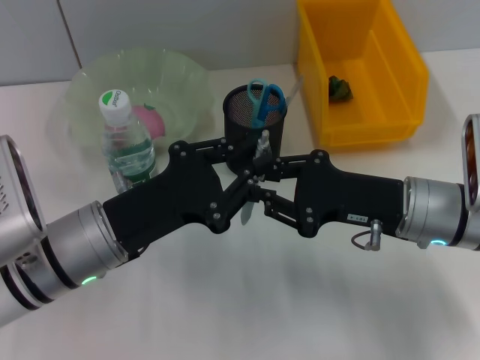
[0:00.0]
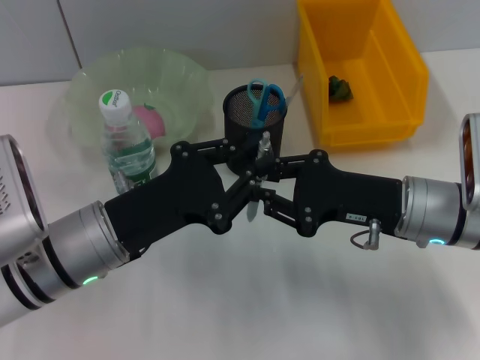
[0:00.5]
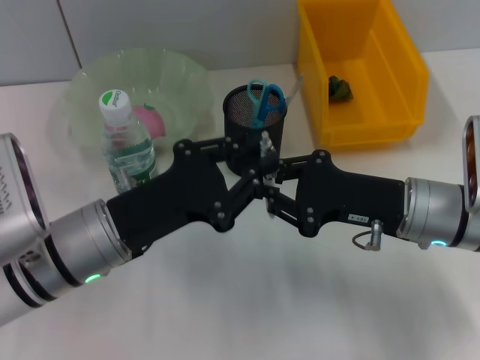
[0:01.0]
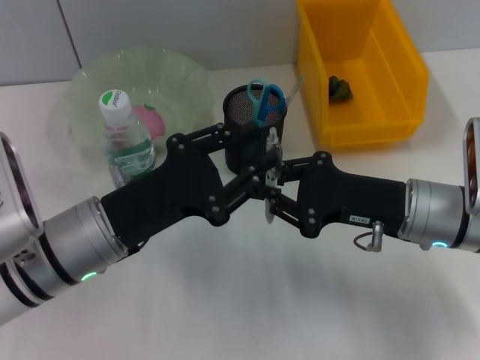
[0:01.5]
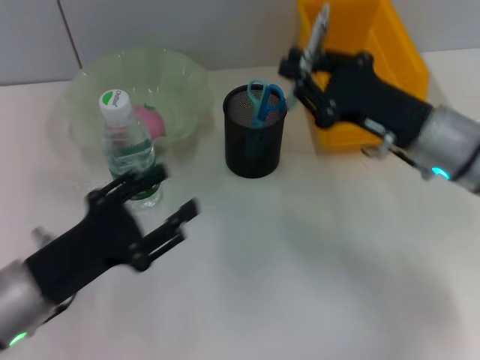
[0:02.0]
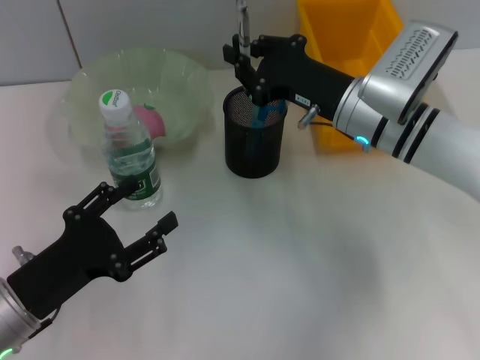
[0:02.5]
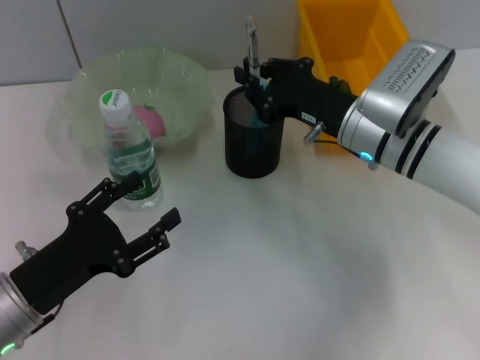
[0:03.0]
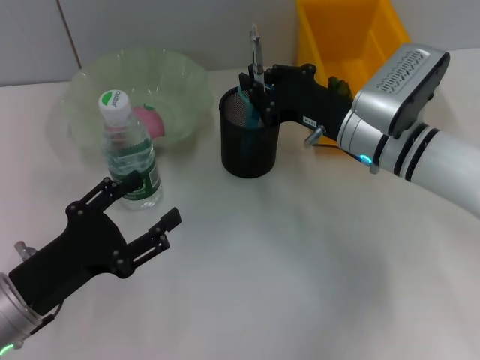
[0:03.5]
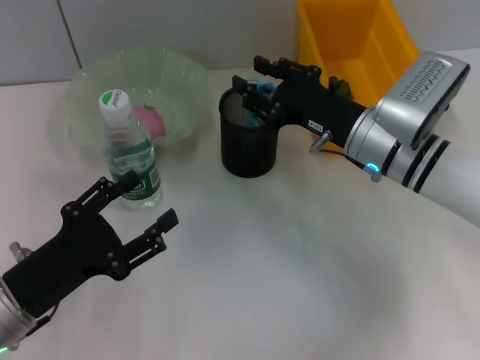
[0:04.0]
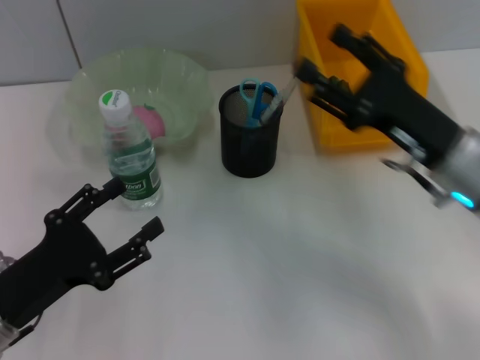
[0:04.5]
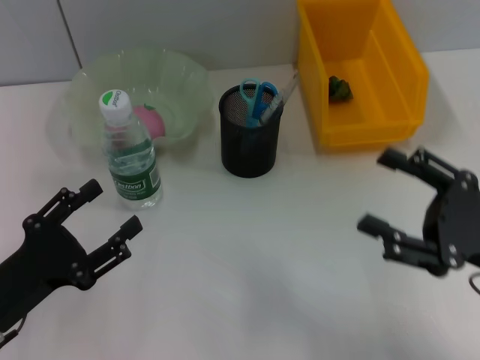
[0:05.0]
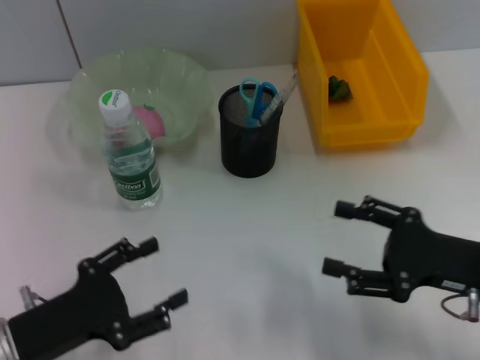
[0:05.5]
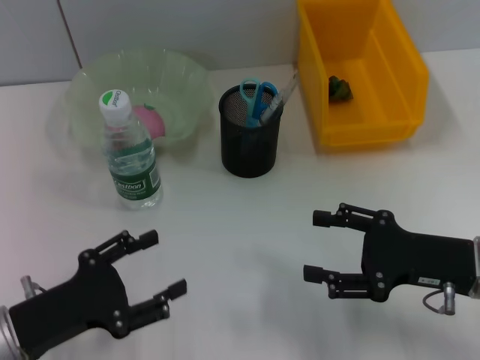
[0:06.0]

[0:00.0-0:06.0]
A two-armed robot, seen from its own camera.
Step, 0:02.0 to 0:04.0: Place the gray spring-action pen into the pen holder with the right hand.
0:00.0 to 0:02.0: The left gripper shifts some 5 cm to the left, and opens its fingers. The right gripper moves about 5 cm.
0:02.0 to 0:04.0: The left gripper opens up. The right gripper shifts by some 5 cm.
0:04.0 to 0:06.0: The right gripper is displaced backward and to the right by about 15 cm, and opens its fingers.

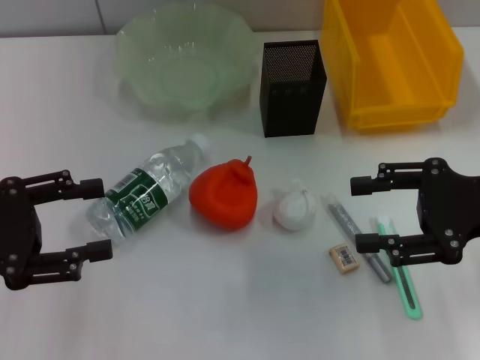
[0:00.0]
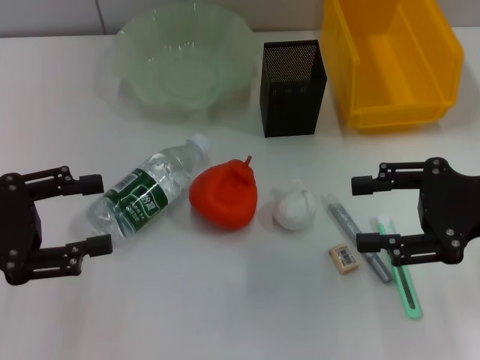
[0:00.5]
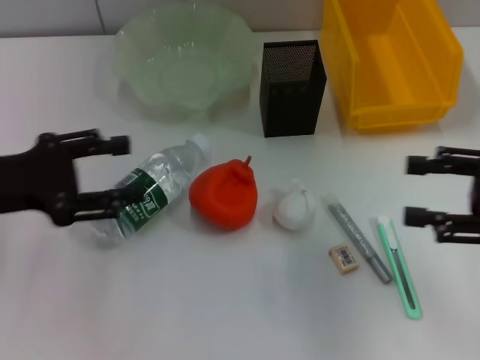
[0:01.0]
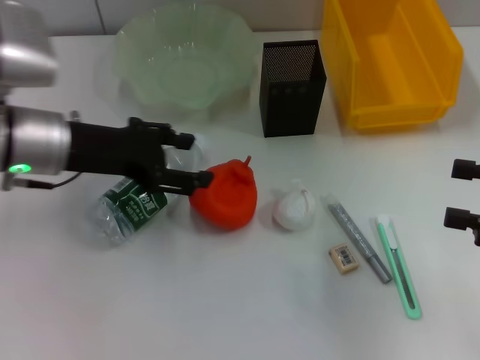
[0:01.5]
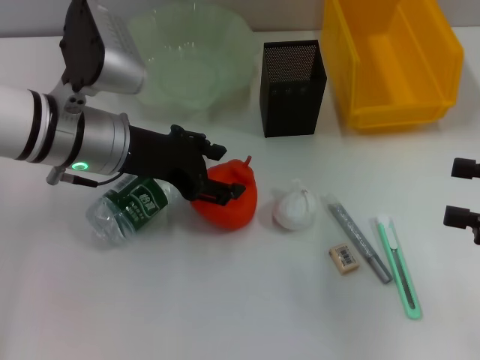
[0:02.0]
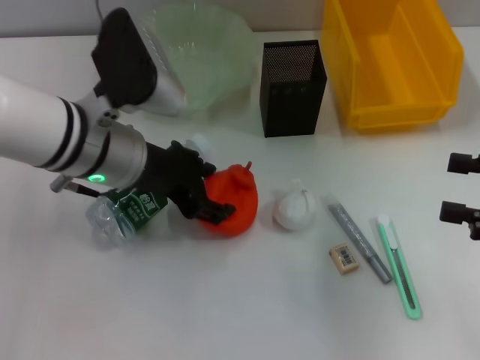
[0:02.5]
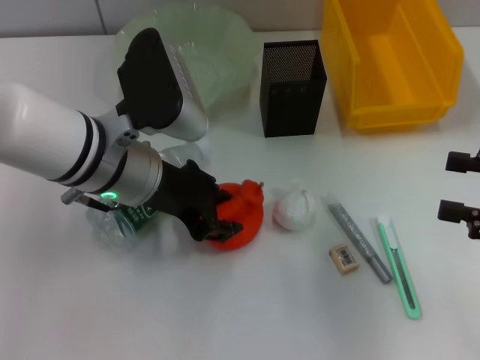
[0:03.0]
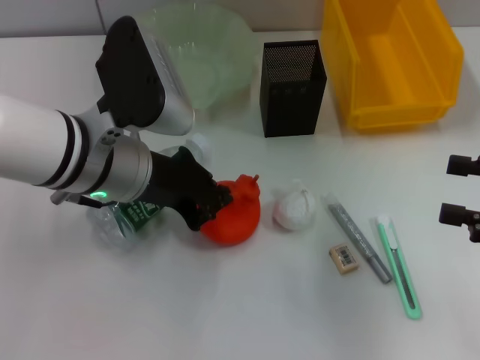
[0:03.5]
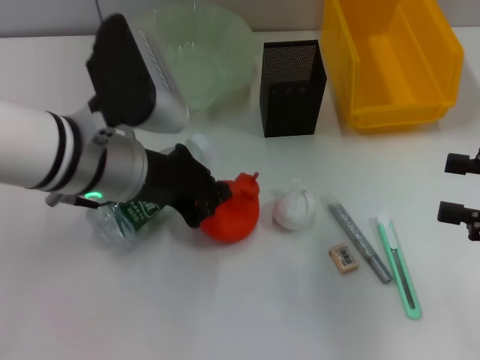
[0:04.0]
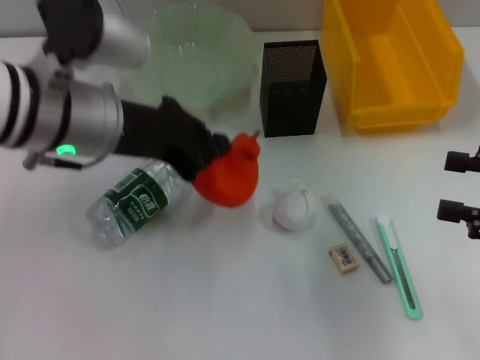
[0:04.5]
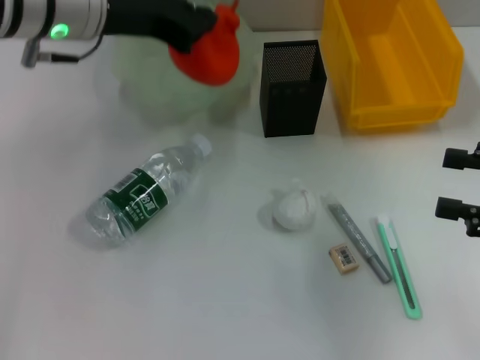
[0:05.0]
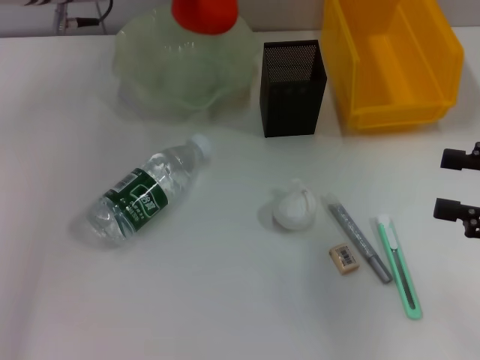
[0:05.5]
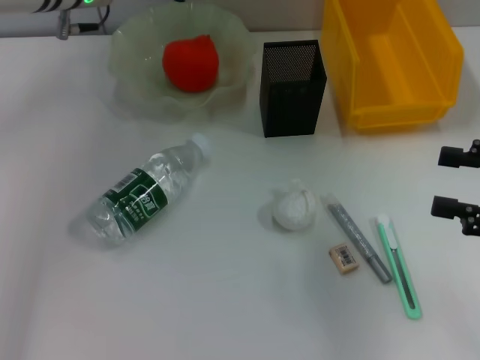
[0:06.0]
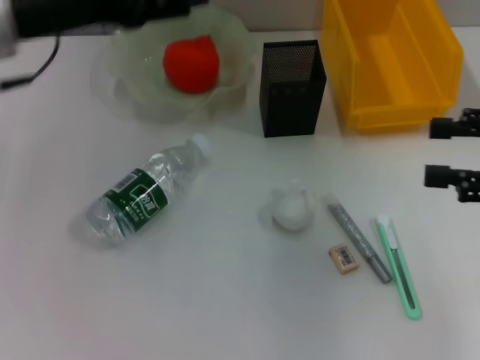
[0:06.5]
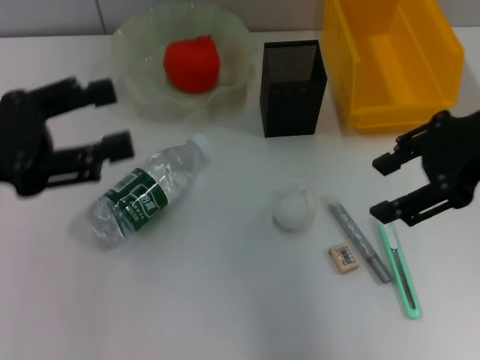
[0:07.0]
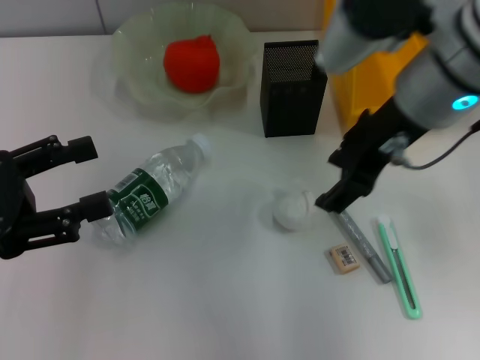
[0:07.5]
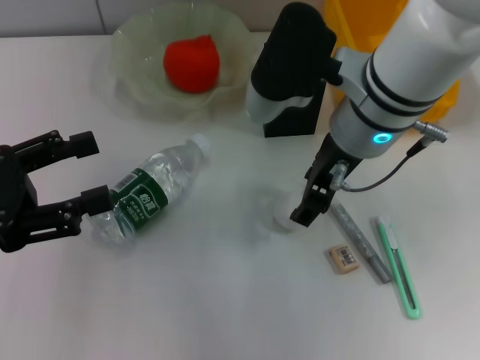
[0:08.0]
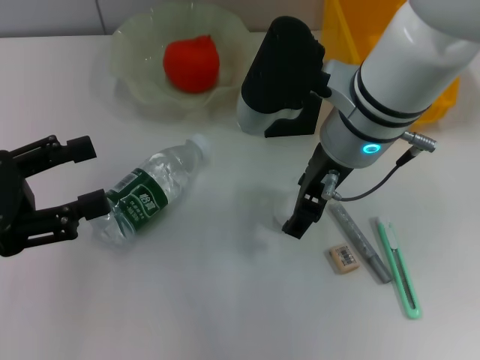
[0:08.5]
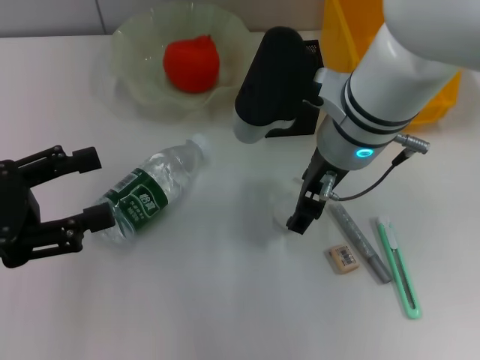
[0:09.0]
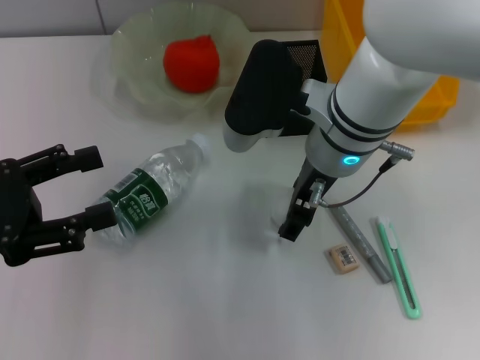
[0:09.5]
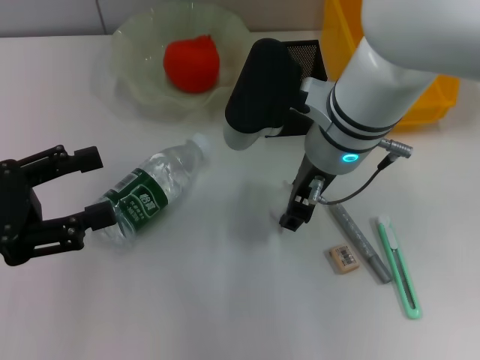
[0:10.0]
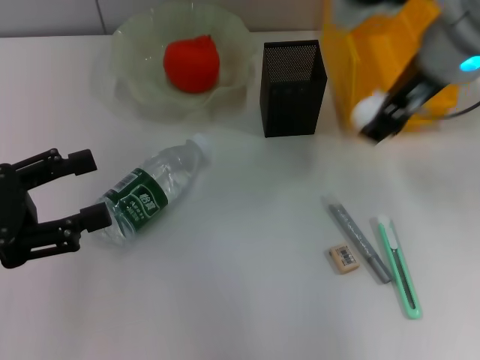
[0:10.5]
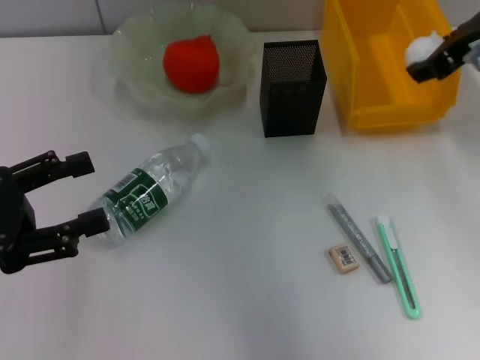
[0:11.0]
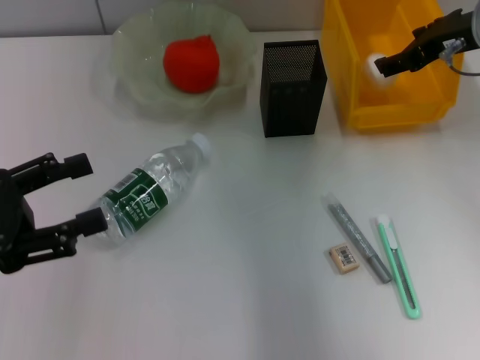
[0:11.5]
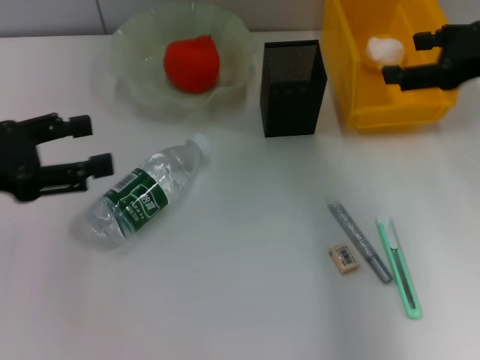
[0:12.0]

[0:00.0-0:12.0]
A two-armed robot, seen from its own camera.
Step, 0:00.0 to 0:03.5: Grab the orange with the left hand.
Step, 0:04.0 to 0:05.5: Place the orange into the fruit bowl with the left hand.
Step, 0:06.0 to 0:09.5: Grab the paper ball with the right hand.
Step, 0:10.0 to 0:11.0: Place the paper ball into the trash can with the right hand.
0:00.0 to 0:02.0: The left gripper shifts approximately 20 cm to the right and forward; the right gripper is displaced to the right by approximately 5 cm.
0:02.0 to 0:04.0: The left gripper moves roughly 5 cm, and closes up.
0:04.0 to 0:06.0: The left gripper heads forward, covering roughly 15 cm.
0:06.0 to 0:08.0: The left gripper shifts roughly 25 cm backward and to the left, and opens. Meanwhile the right gripper goes roughly 30 cm to the left and forward.
0:08.0 to 0:10.0: The grippers move only a little.
0:10.0 to 0:12.0: The left gripper moves about 5 cm; the right gripper shifts some 20 cm to the right.

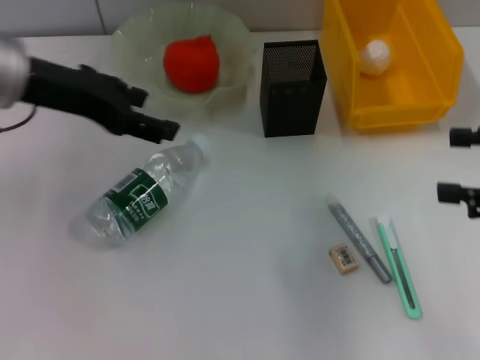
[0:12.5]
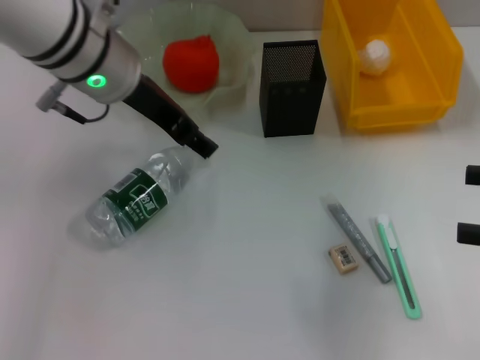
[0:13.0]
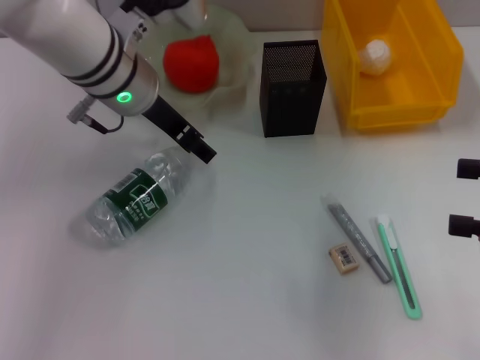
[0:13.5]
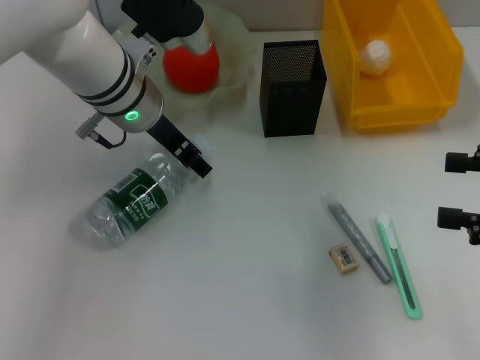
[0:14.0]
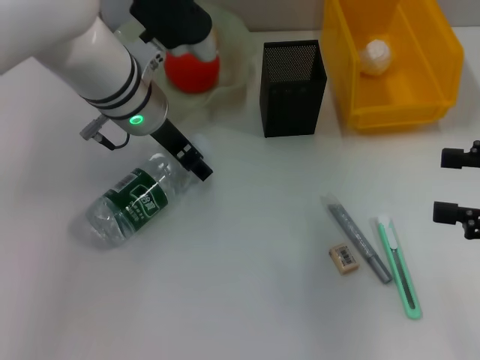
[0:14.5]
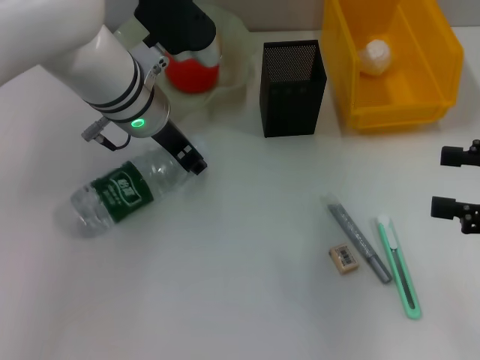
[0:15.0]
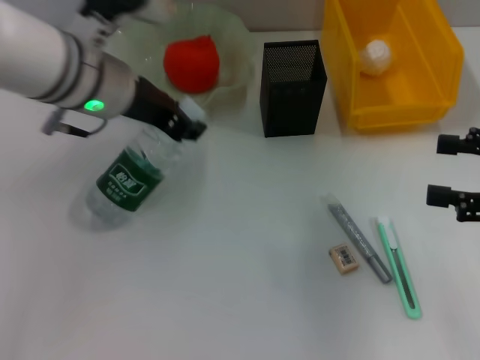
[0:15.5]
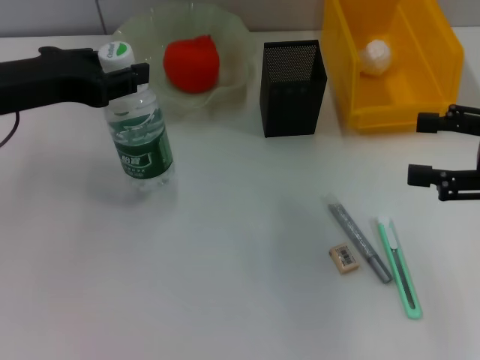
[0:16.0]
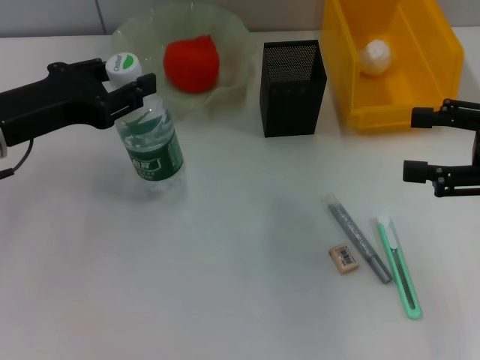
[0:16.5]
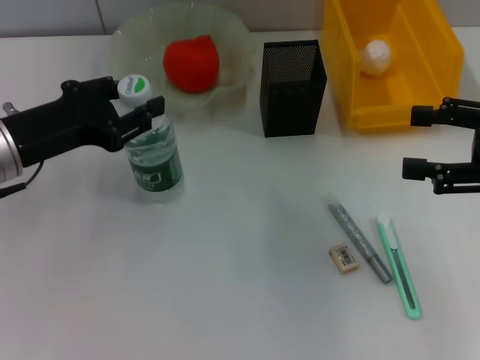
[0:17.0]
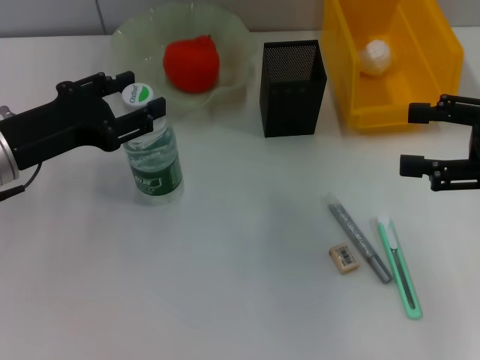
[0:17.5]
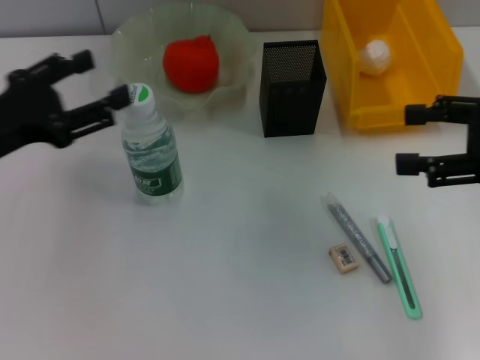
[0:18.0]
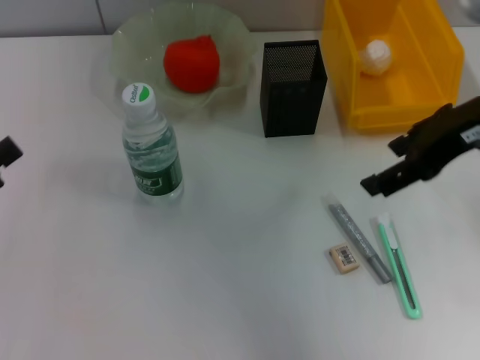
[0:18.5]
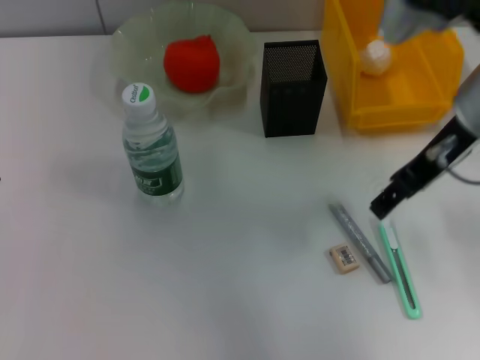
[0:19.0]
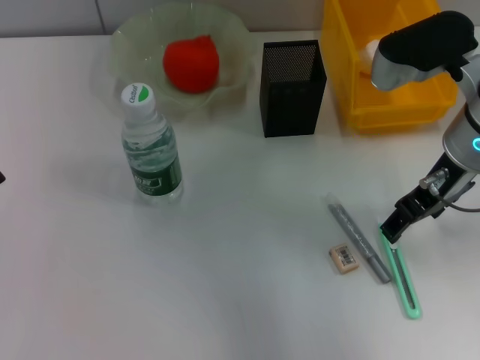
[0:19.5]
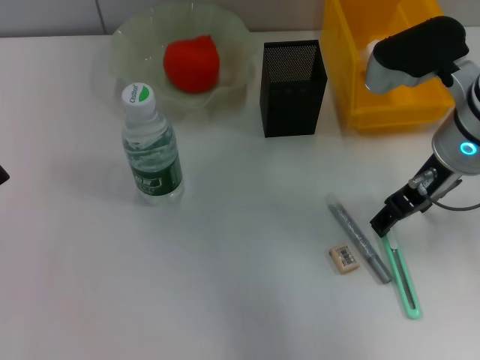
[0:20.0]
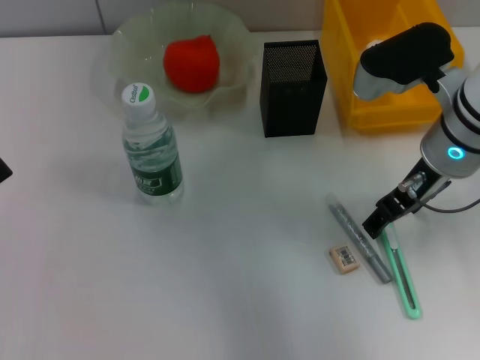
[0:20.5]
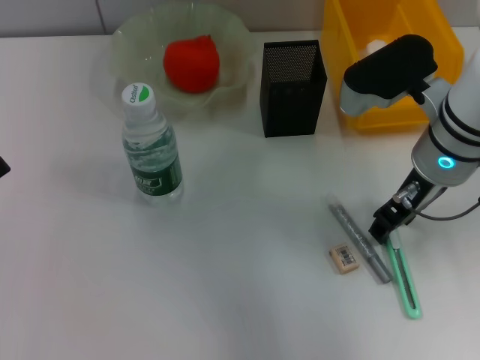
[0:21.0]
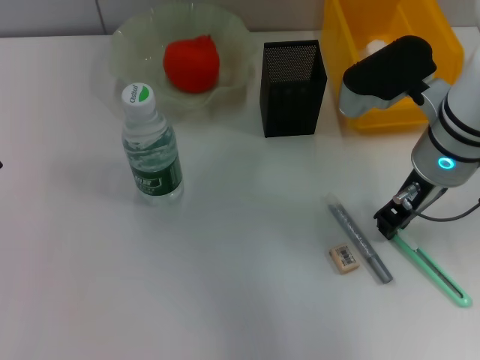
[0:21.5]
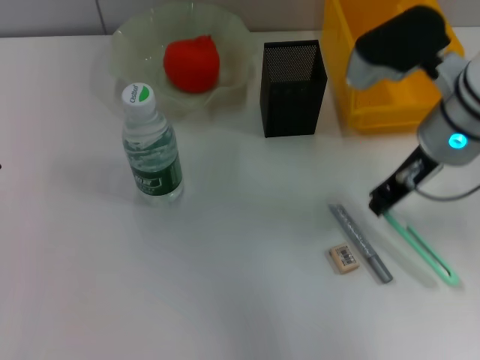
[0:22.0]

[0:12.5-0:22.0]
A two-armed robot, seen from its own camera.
Step, 0:12.5 to 0:15.0: Grab the water bottle with the left hand.
Step, 0:15.5 to 0:17.5: Place the water bottle on the table with the left hand.
Step, 0:18.0 to 0:21.5: Grab the blue utility knife with the right hand.
0:12.5 to 0:14.5: The left gripper is displaced to the right, downward and forward by roughly 15 cm.
0:14.5 to 0:16.5: The left gripper goes some 15 cm to the left and backward.
0:16.5 to 0:18.0: The left gripper shifts by approximately 5 cm, and opens its fingers.
0:18.0 to 0:20.0: The right gripper travels to the left and forward by some 15 cm; the left gripper shifts some 10 cm backward and to the left.
0:20.0 to 0:22.0: The right gripper closes.
